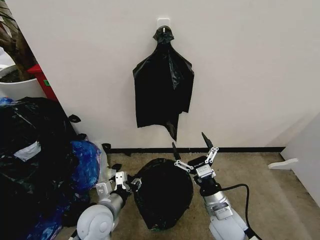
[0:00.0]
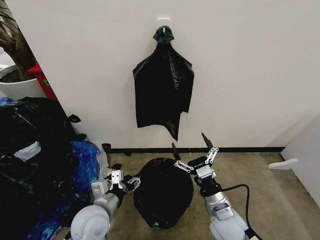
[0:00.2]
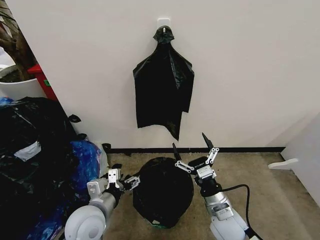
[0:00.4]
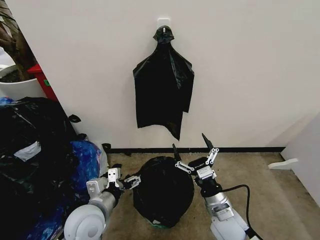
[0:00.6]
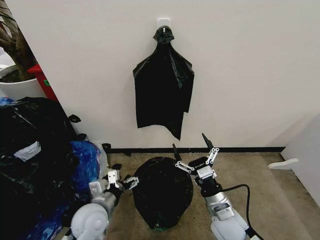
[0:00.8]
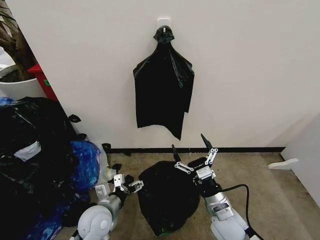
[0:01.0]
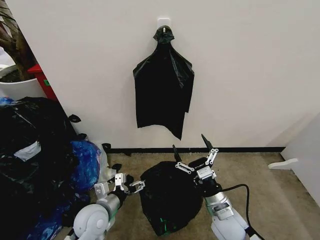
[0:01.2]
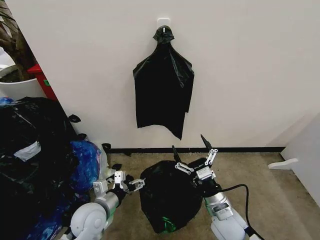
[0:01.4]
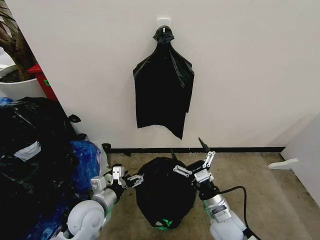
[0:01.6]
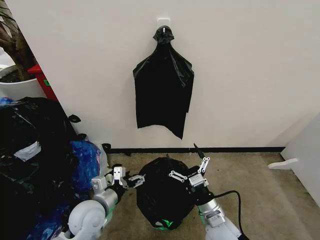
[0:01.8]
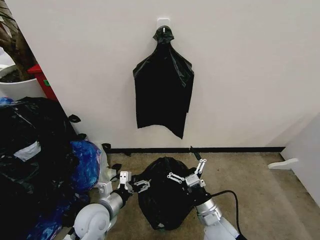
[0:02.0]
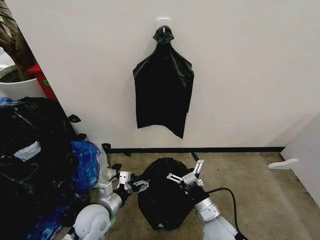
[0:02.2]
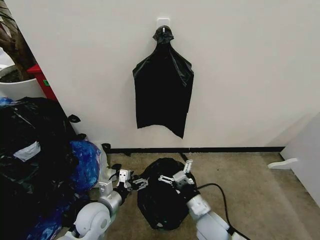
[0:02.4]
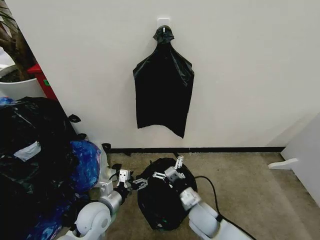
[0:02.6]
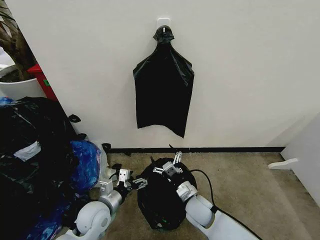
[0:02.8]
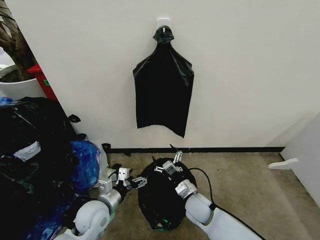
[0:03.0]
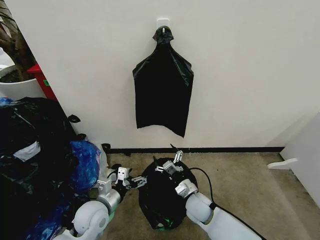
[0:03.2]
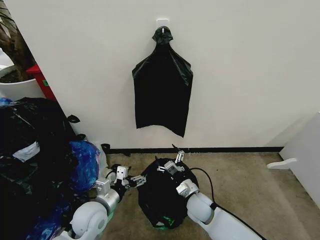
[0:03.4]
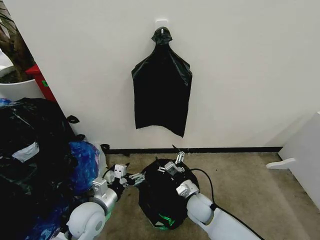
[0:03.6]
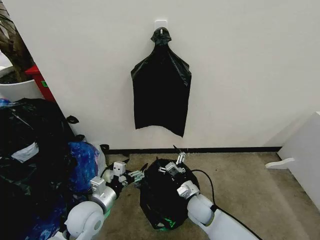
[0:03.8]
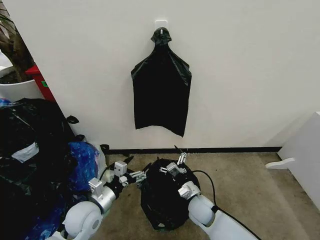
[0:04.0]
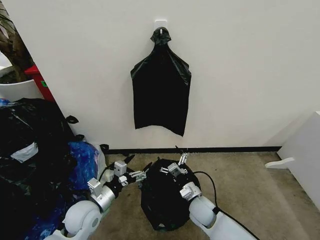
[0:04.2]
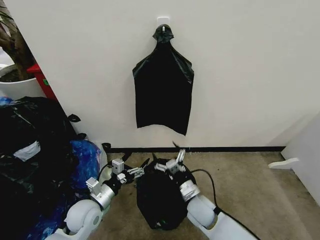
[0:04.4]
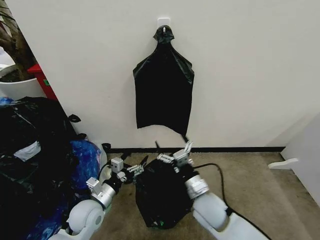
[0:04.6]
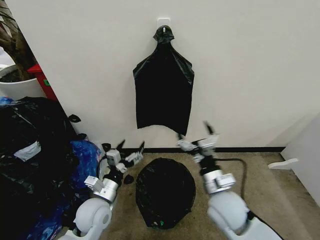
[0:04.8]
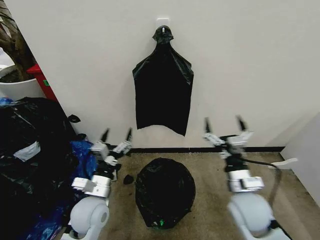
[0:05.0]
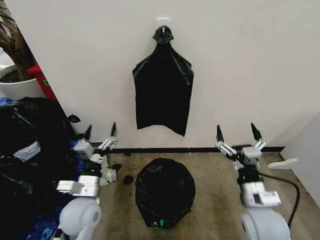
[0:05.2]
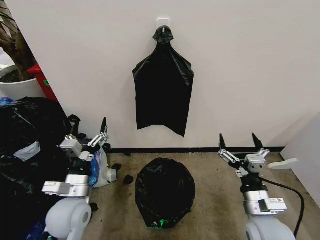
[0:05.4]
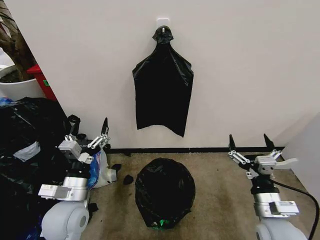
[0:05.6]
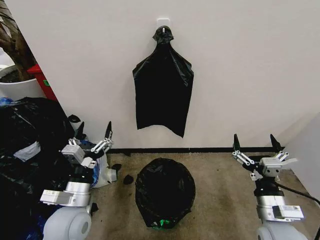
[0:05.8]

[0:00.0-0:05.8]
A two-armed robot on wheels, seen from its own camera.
Task of the whole recording: Place the garbage bag over the trash bin.
0:00.0 to 0:01.4: The left gripper opens.
0:01.4 to 0:02.8: The right gripper shifts some 10 cm to the left, downward and forward.
0:04.4 to 0:05.8: The right gripper travels to the right, upward and backward by some 20 cm, while the left gripper shifts roughly 10 cm upward.
